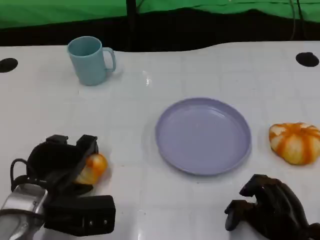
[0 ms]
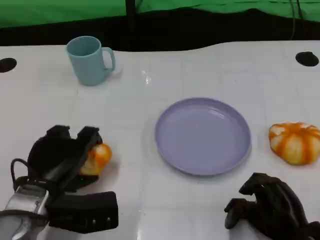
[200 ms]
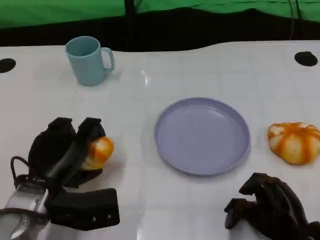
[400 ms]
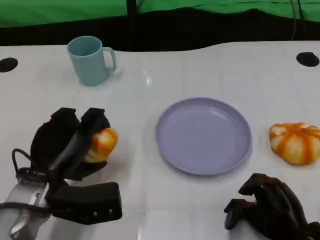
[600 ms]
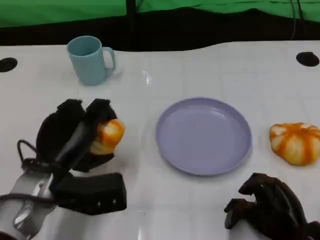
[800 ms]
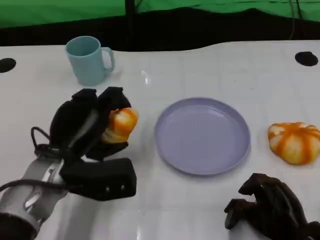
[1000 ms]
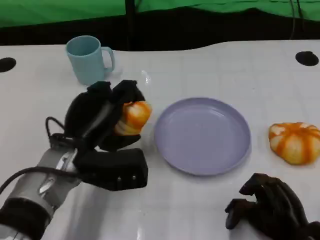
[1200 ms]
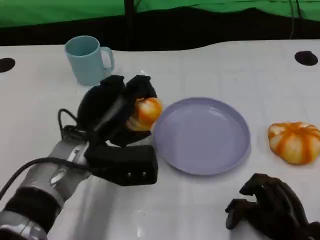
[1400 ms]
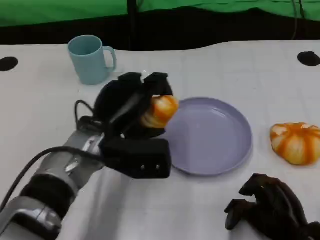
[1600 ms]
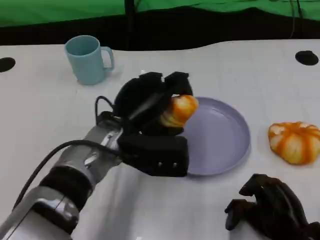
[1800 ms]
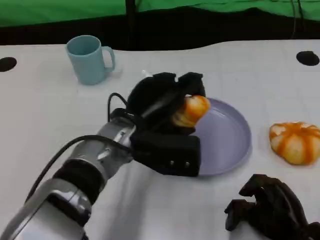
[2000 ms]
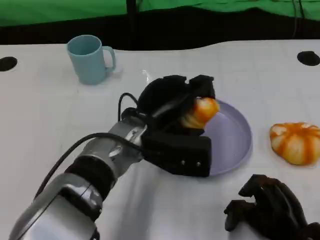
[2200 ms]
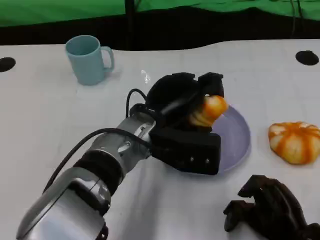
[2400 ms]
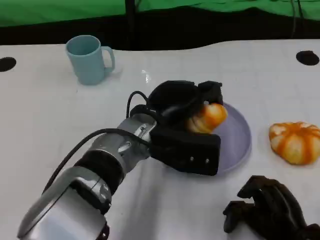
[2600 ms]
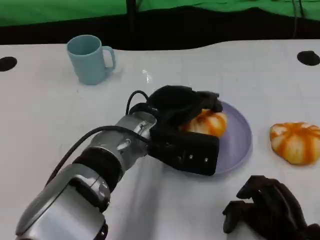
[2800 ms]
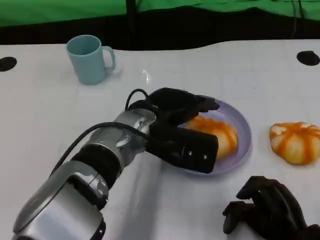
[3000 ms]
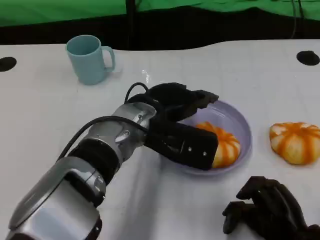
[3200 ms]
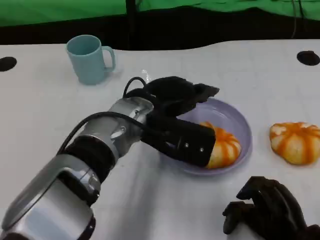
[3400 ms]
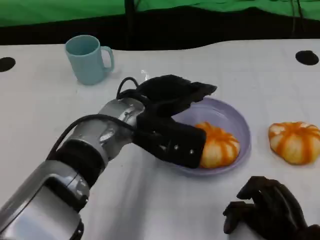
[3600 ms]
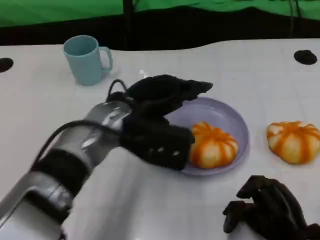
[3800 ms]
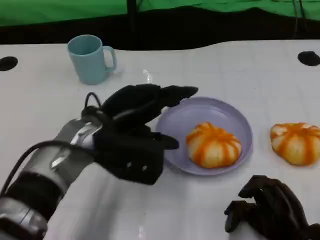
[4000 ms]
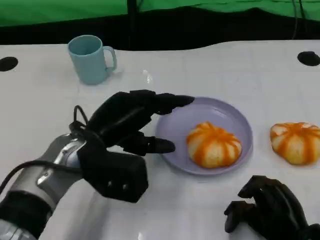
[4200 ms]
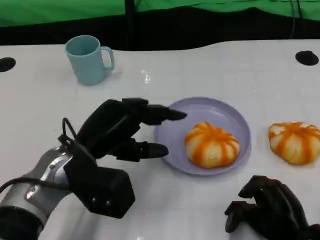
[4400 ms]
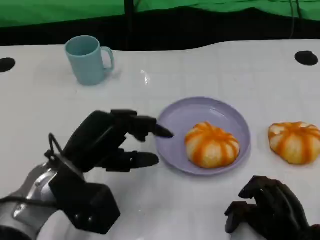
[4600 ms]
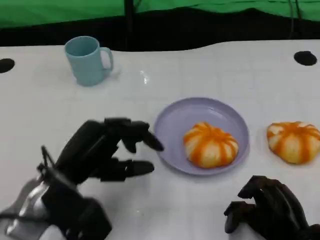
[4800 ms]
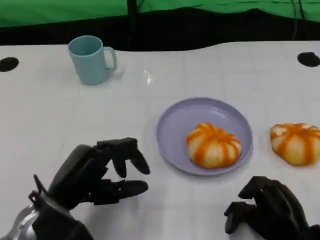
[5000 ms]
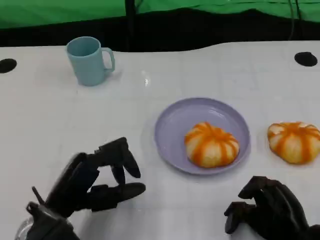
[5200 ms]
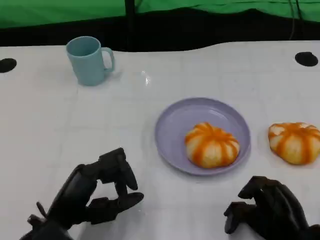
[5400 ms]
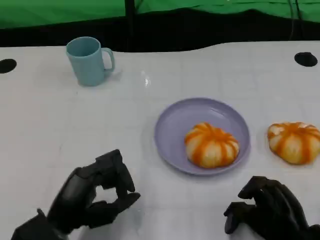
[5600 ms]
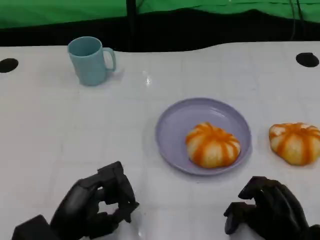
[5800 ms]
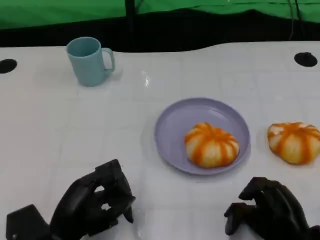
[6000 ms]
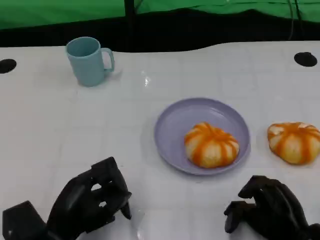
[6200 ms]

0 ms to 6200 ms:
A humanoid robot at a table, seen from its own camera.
Task of the whole recording: Grasp the bread from the table and place it into the plate.
0 ms to 1600 ms: The left hand is displaced to the right, forward and upward by roughly 15 cm.
1600 ms to 3200 ms: The left hand is displaced to the right by some 5 cm.
3200 ms to 4600 ms: The left hand shifts roughly 15 cm to the left and backward.
4600 ms to 6200 ms: The left hand moves backward and downward, some 10 cm.

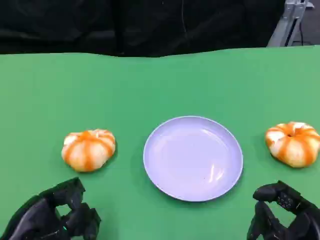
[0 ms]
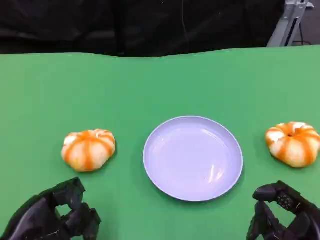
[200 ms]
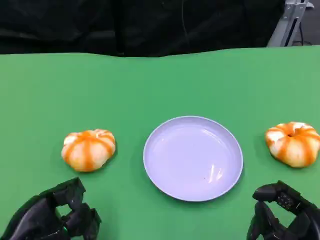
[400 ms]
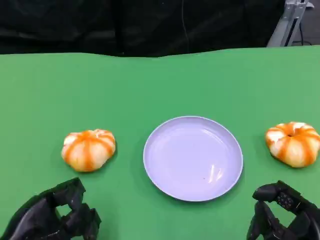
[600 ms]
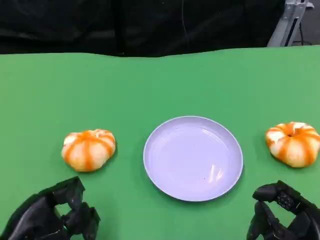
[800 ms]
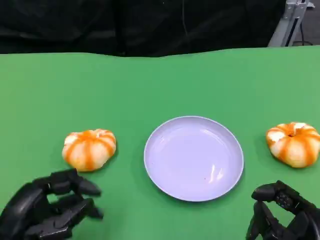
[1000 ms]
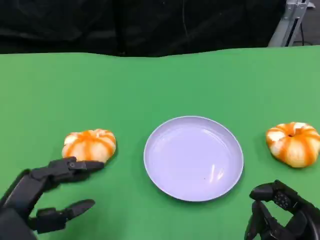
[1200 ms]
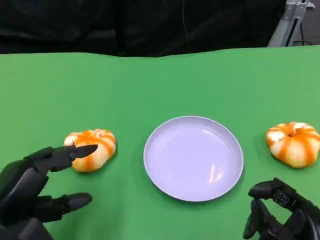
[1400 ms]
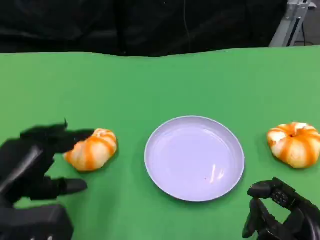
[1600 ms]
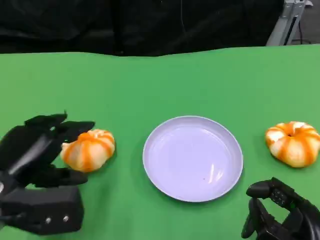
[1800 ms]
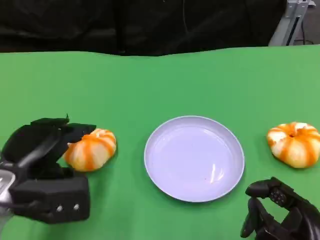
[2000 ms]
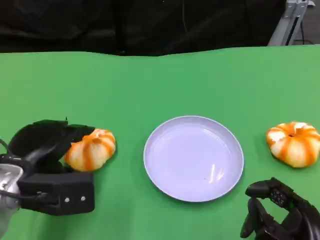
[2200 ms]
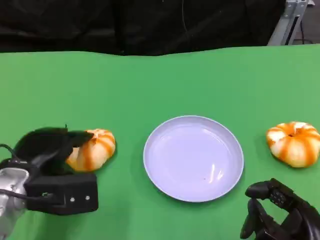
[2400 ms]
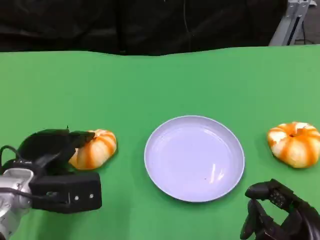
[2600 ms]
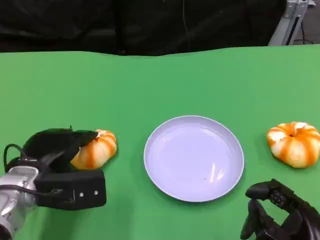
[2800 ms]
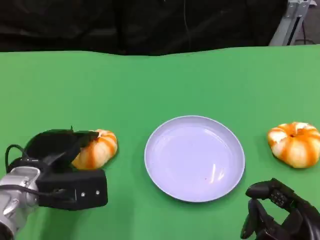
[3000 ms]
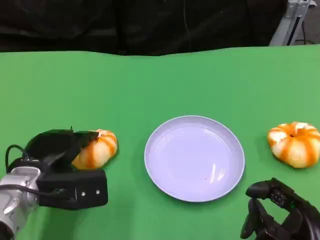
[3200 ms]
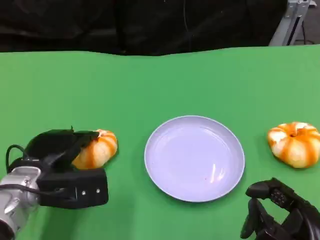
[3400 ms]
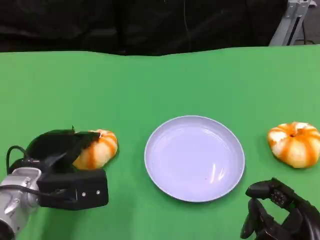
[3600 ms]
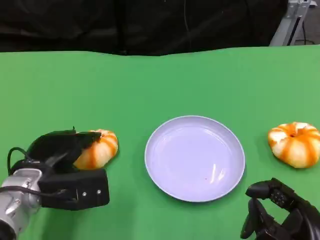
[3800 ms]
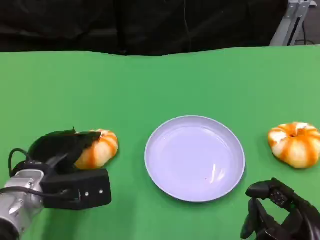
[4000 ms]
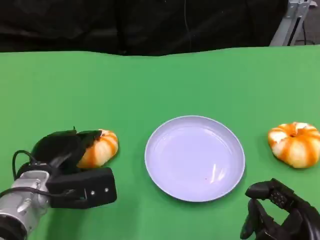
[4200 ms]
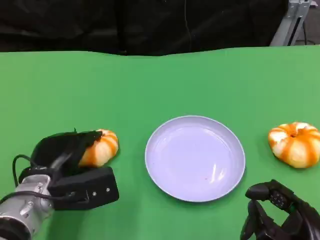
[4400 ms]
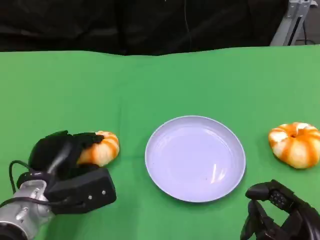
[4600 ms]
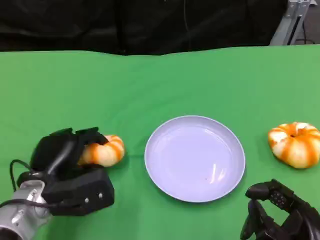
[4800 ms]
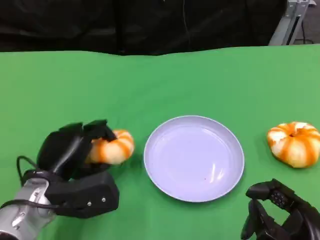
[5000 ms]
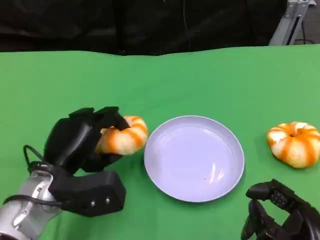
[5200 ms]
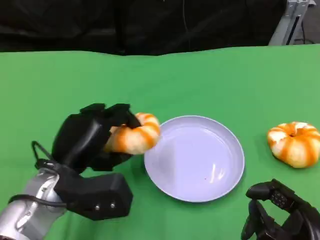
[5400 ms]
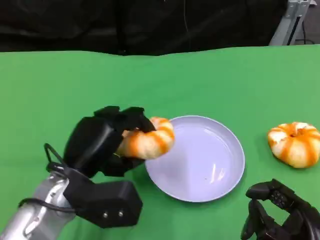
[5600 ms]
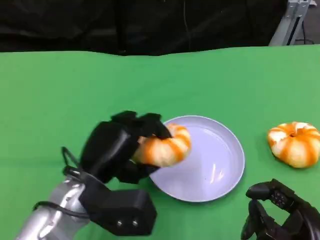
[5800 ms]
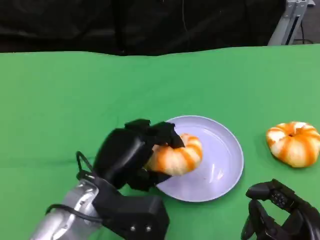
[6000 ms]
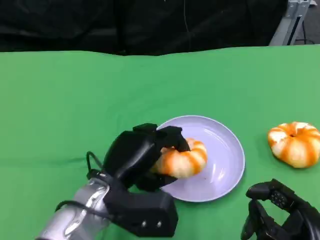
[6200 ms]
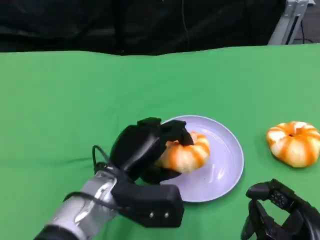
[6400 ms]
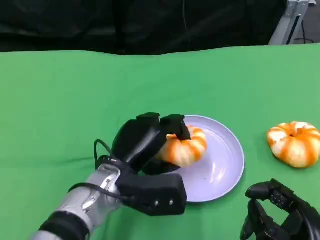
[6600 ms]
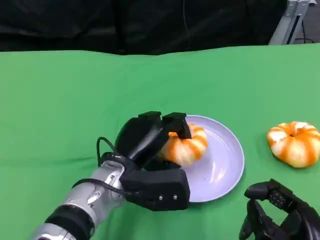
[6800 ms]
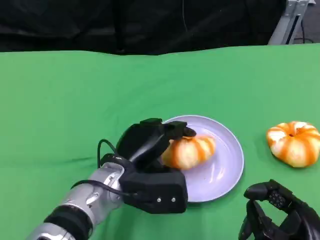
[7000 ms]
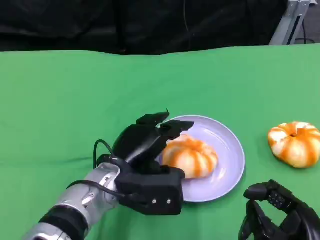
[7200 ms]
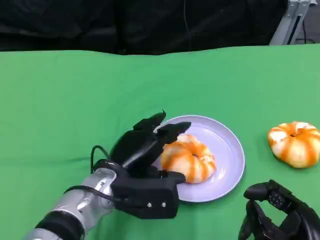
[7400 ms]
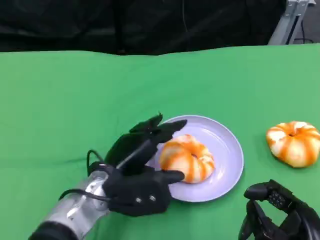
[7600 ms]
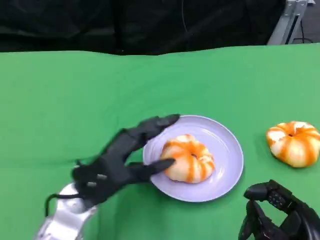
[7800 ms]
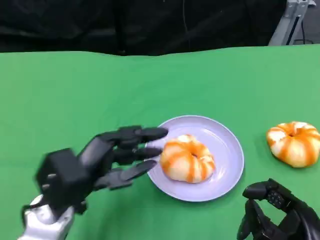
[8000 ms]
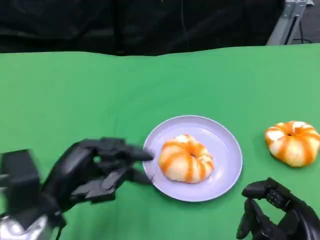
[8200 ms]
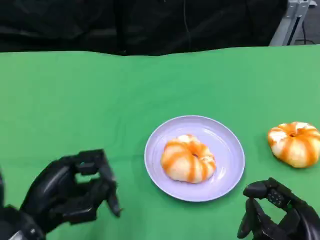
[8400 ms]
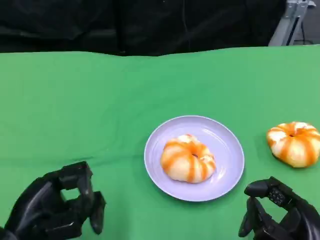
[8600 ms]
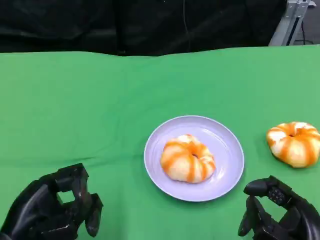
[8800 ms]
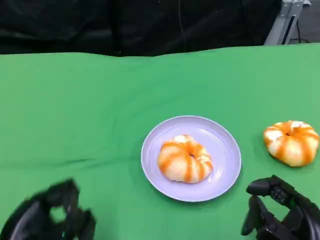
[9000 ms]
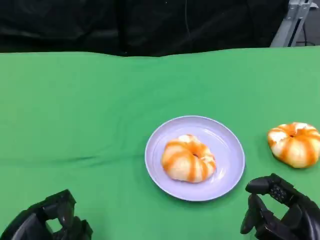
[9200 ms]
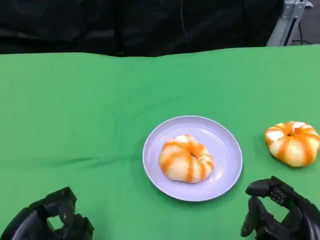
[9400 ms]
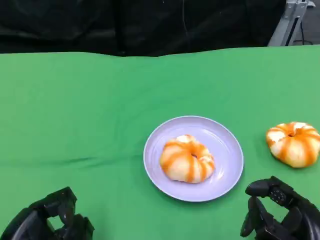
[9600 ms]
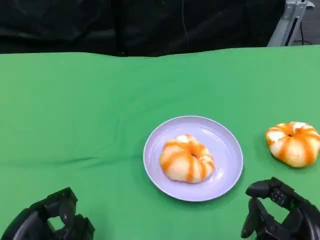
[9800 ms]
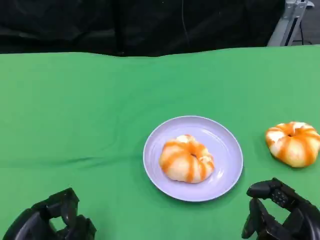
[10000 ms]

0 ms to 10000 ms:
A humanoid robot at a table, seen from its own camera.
Task of the whole recording: Grasp the bread from the table and place it into the plate.
1400 ms to 2800 ms: The left hand travels forward by roughly 10 cm.
2800 ms to 4200 ms: The hands make only small movements.
4200 ms to 5800 ms: The left hand moves to the right, approximately 5 cm.
5800 ms to 7200 ms: The left hand shifts by about 5 cm.
7200 ms to 8600 ms: The left hand heads to the left and backward, covering some 20 cm.
8600 ms to 10000 ms: The hands stay close to where they were, moving slightly.

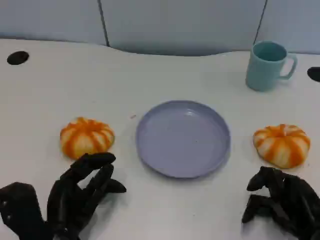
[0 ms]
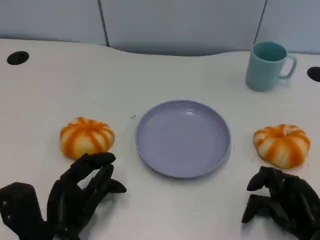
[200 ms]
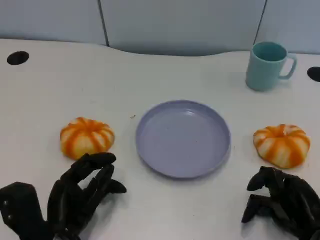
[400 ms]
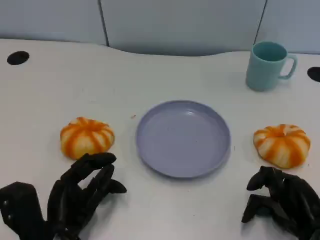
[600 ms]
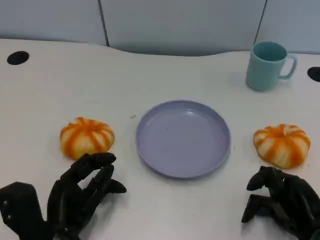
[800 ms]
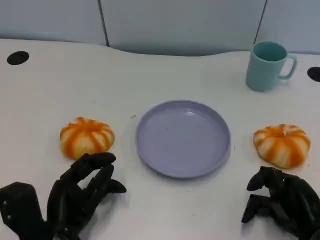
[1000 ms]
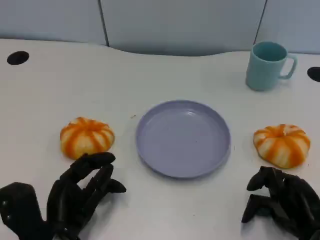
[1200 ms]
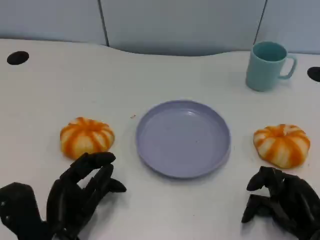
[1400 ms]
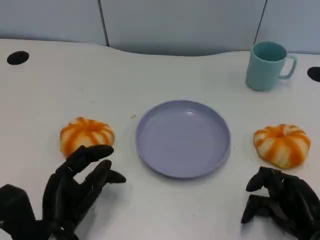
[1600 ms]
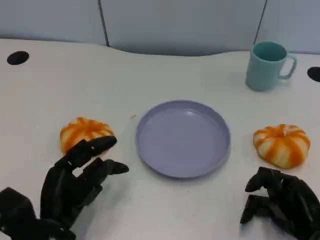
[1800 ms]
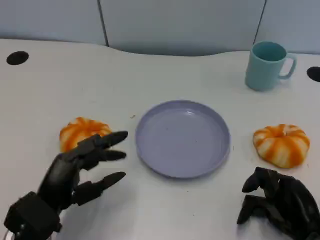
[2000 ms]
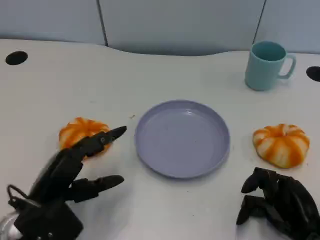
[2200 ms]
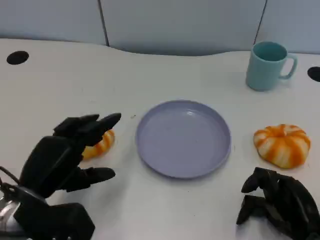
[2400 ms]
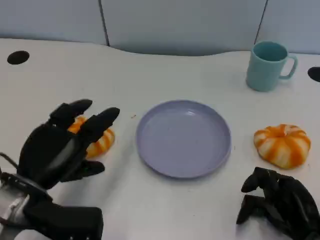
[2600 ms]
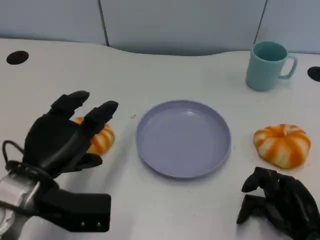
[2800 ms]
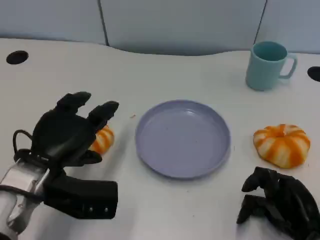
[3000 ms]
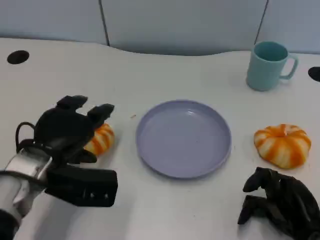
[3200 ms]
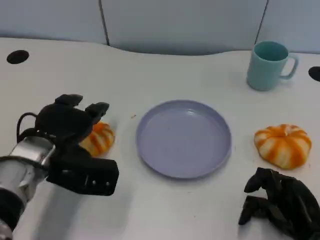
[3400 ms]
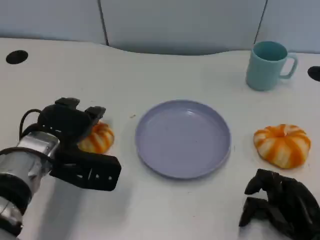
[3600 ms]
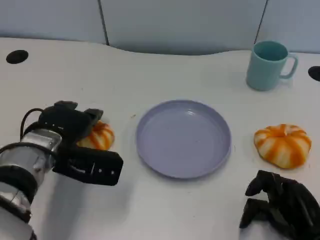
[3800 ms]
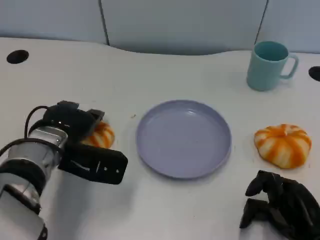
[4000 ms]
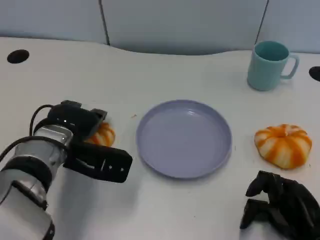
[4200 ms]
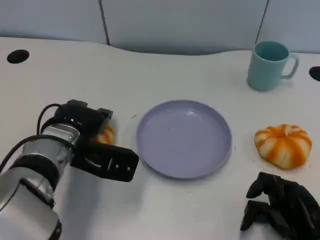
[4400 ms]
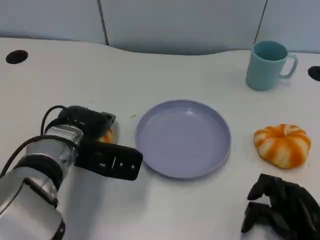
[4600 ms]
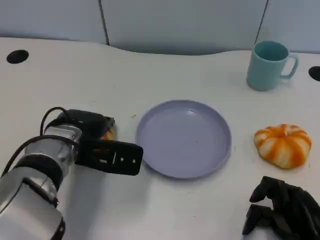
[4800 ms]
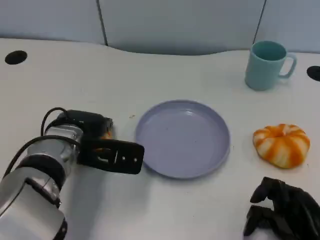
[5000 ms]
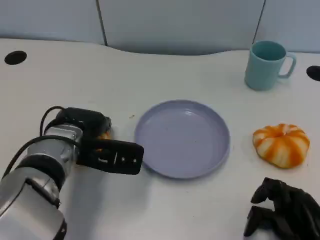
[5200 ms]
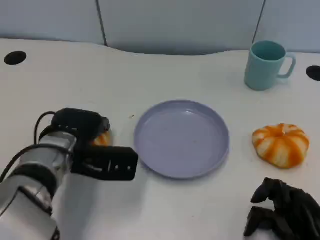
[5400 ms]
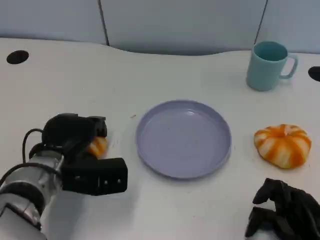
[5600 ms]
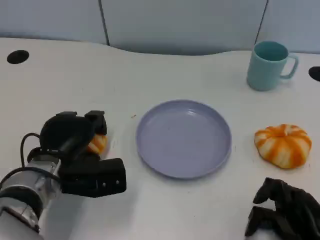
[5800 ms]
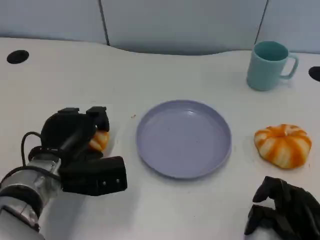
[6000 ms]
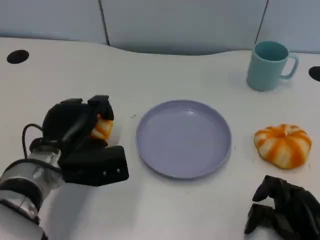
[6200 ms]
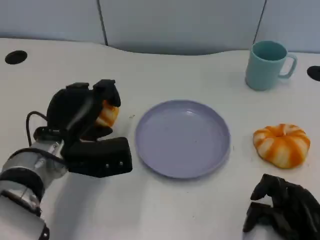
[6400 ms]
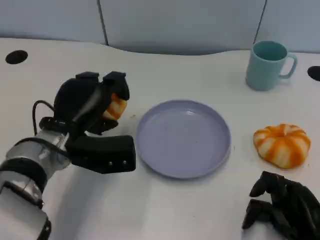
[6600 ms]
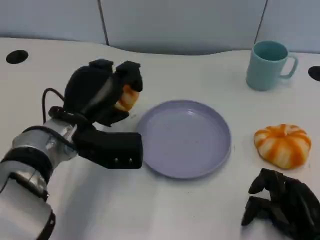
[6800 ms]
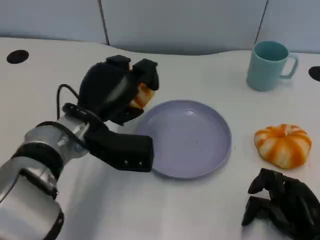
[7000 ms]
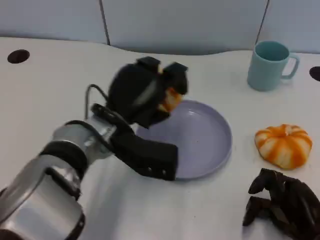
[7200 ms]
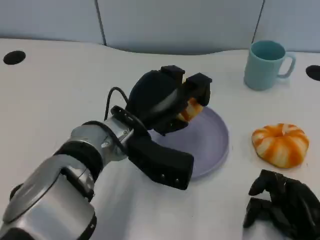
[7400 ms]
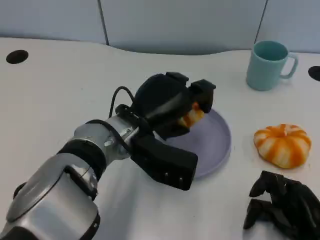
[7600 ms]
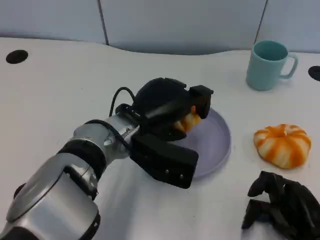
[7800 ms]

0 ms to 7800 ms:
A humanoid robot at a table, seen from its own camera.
Task of the whole recording: Grasp the bread from the table and place it into the plate.
0 ms to 1600 ms: There are only small adjustments of the hands.
1600 ms to 3200 ms: The left hand travels forward and upward by roughly 10 cm.
3200 ms to 4600 ms: The left hand moves roughly 5 cm.
6200 ms to 7800 ms: The left hand moves to the right, about 10 cm.
